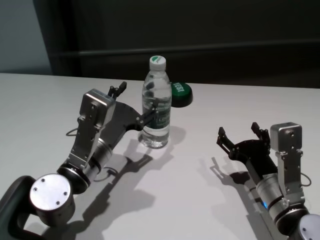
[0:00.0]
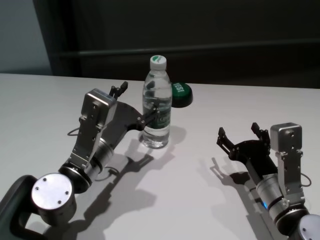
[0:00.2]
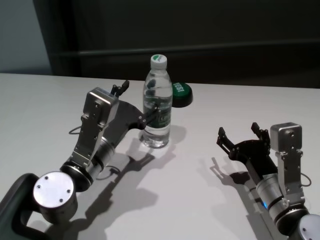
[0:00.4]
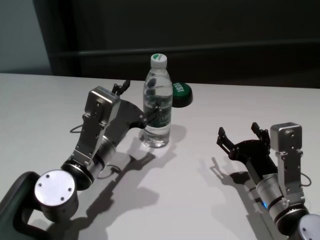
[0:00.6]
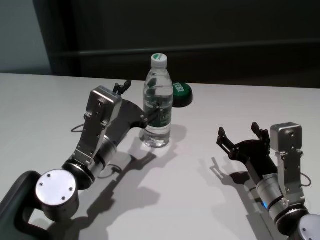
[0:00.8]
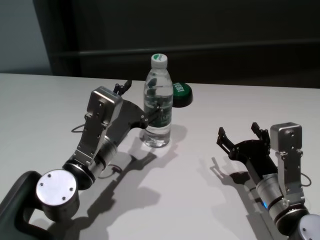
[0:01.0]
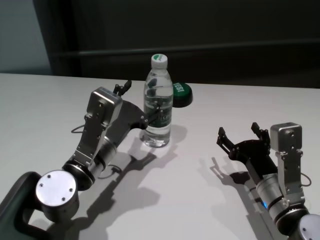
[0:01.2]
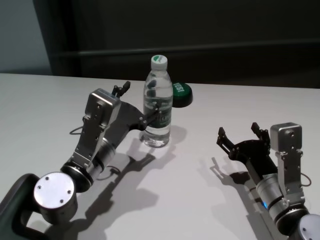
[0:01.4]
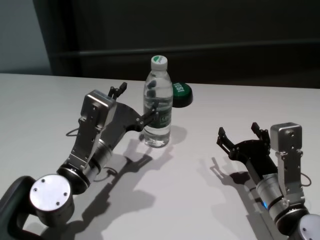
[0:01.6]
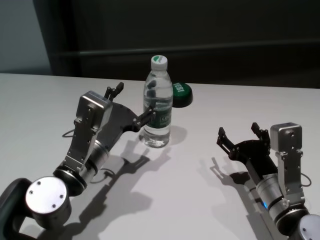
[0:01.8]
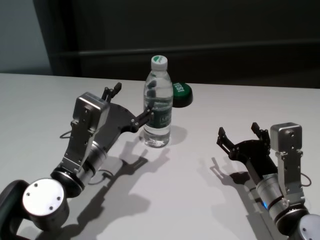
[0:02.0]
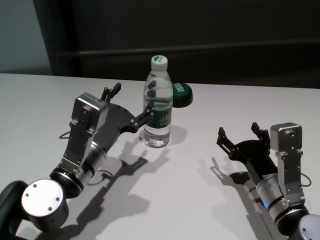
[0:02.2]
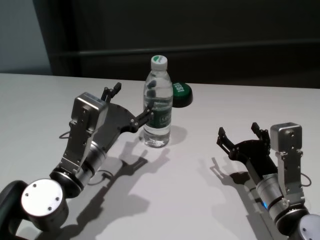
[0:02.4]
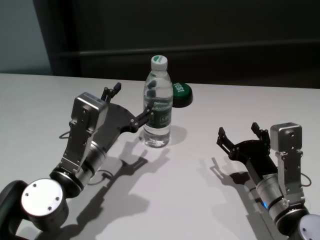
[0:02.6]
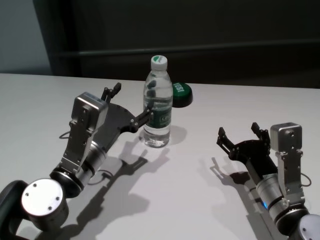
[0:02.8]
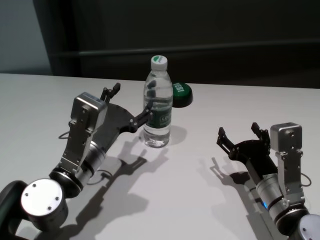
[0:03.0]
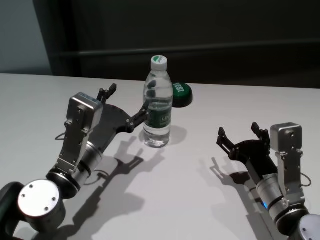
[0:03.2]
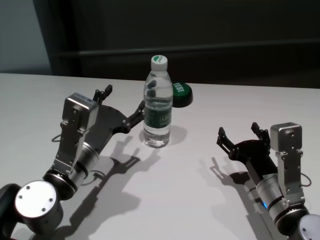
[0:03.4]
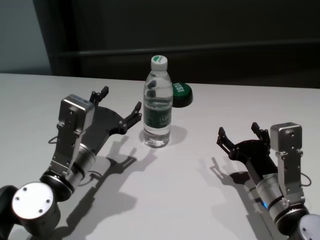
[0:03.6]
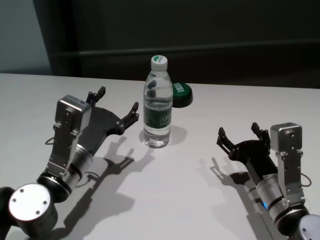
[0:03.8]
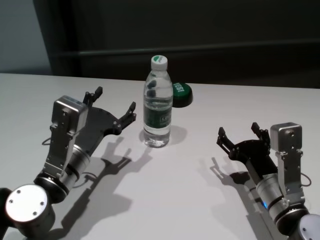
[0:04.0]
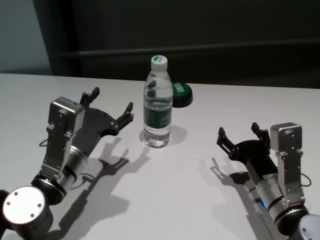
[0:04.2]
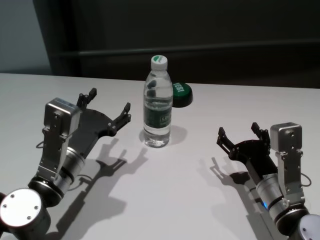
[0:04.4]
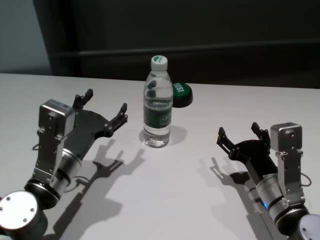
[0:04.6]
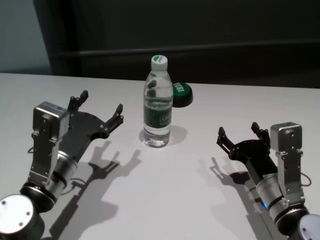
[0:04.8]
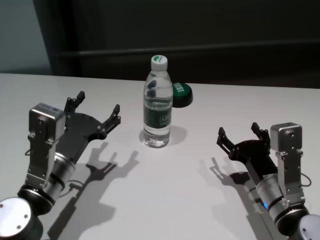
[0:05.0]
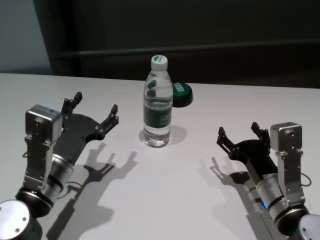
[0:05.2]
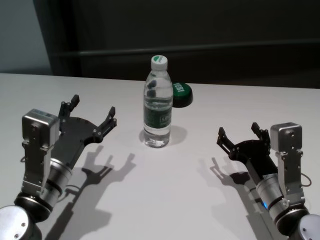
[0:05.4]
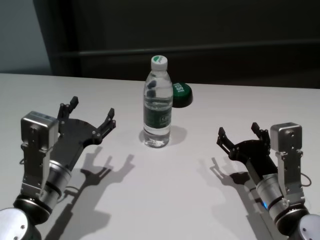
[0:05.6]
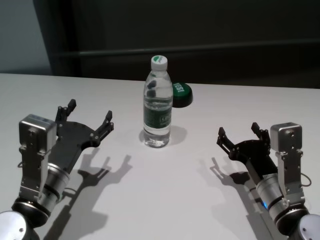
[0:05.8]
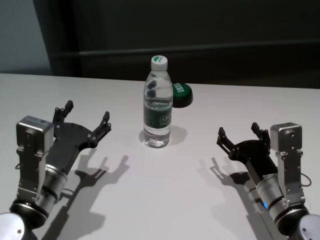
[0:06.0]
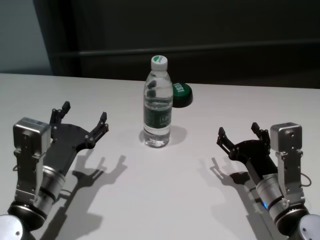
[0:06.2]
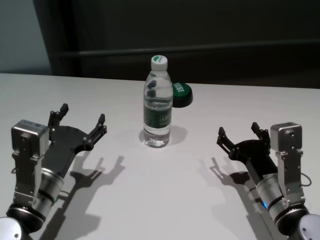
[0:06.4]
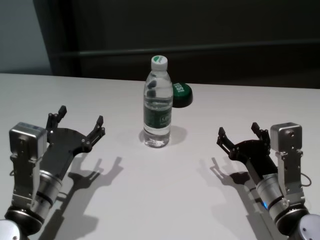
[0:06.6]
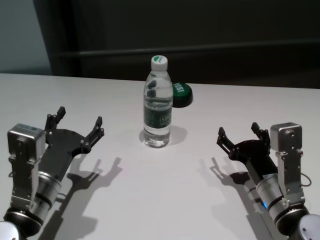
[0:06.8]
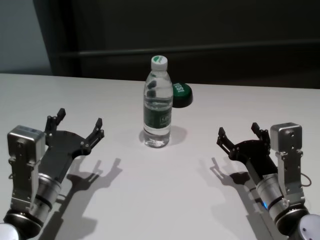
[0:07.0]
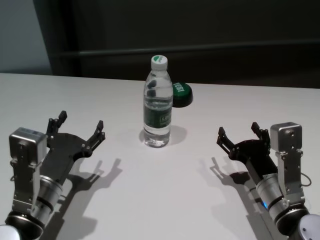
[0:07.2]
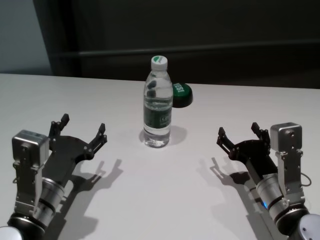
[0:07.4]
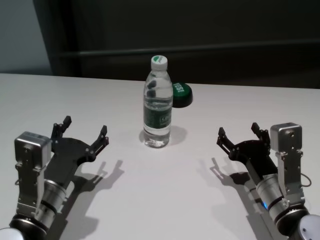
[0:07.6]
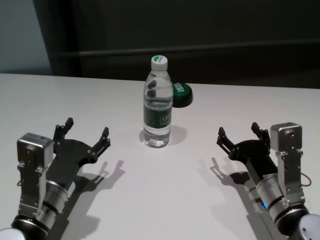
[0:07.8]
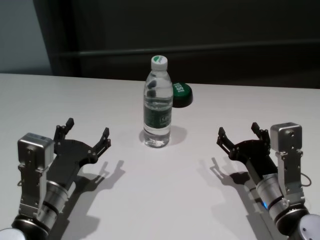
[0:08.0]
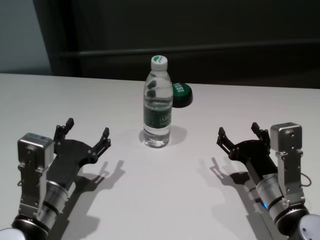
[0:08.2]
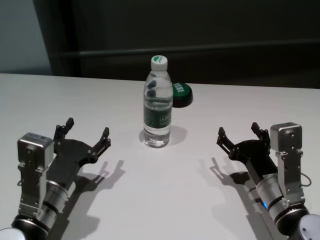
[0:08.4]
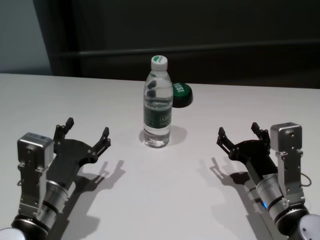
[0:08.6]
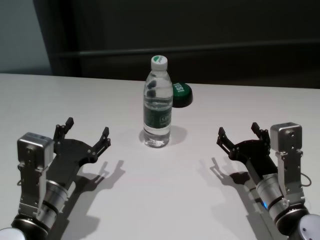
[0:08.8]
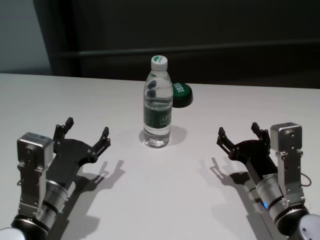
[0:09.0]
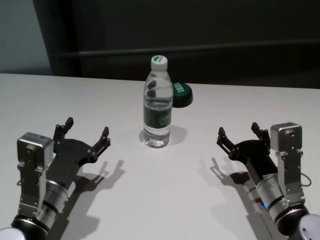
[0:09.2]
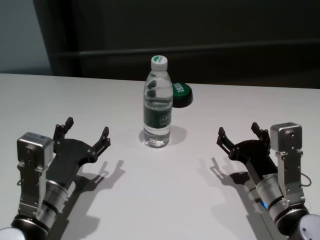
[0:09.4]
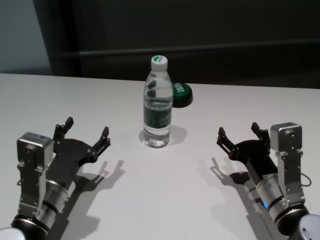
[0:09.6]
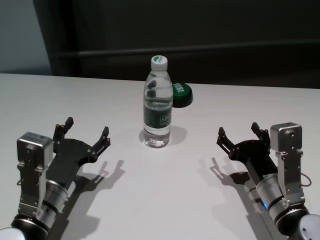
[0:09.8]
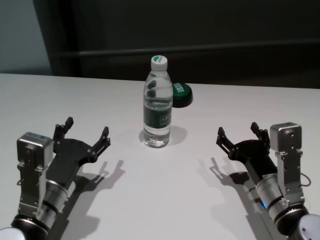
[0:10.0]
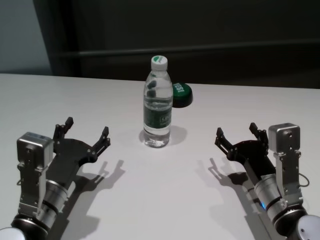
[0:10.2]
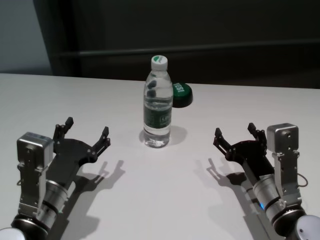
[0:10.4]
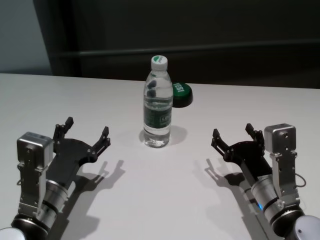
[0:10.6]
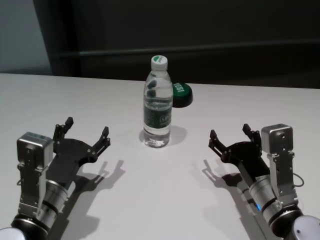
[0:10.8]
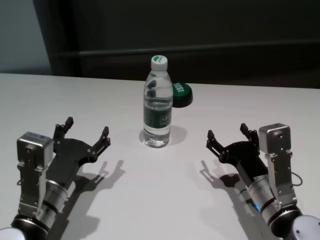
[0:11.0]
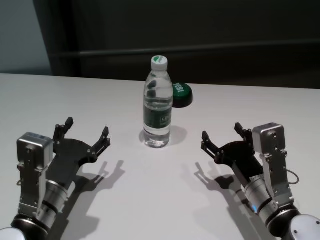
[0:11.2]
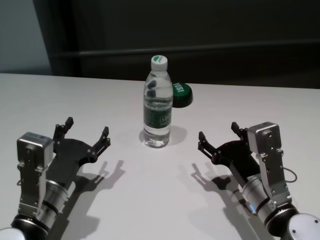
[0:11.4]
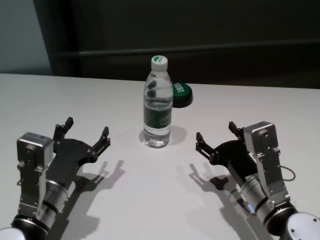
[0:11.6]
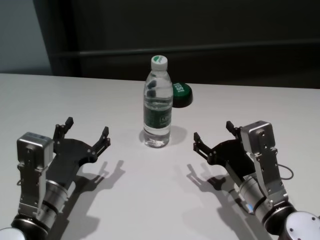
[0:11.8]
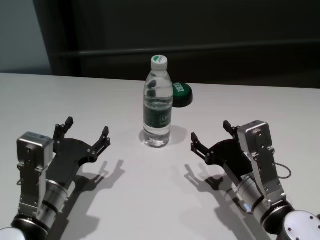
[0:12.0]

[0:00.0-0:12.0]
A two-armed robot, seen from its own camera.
Task of the whole recording: return to a safe position after touching an obstacle with your arm on the white table.
Step, 0:00.0 to 0:03.6: Touch the bottle with left gripper.

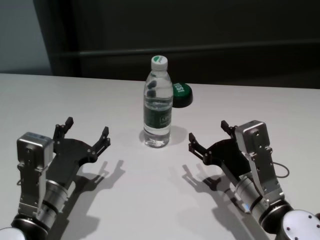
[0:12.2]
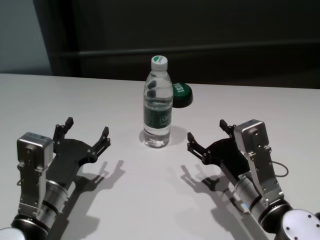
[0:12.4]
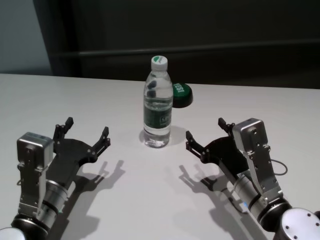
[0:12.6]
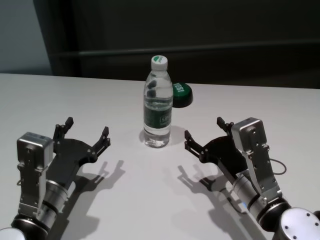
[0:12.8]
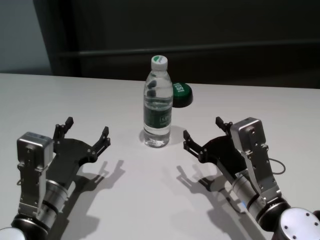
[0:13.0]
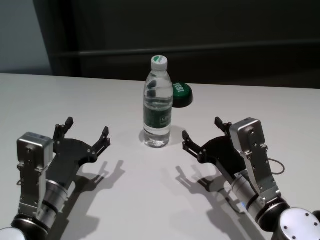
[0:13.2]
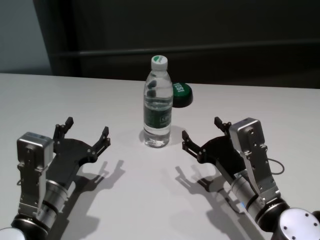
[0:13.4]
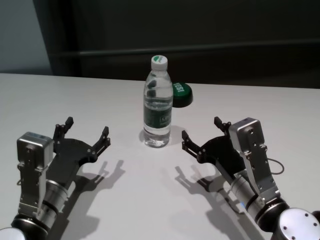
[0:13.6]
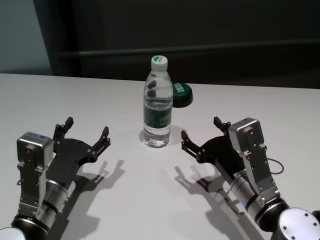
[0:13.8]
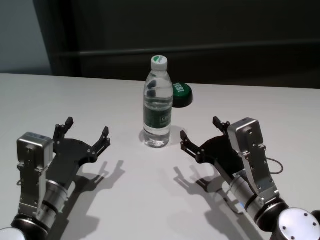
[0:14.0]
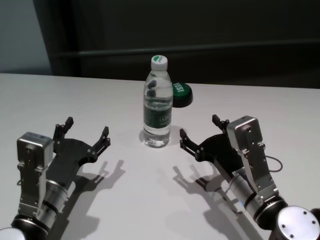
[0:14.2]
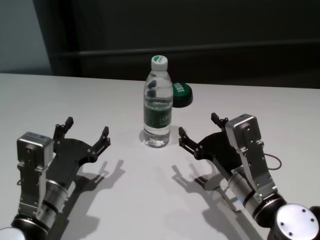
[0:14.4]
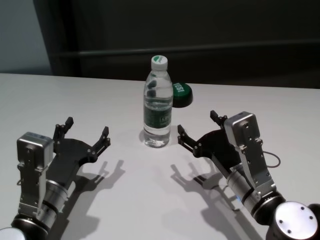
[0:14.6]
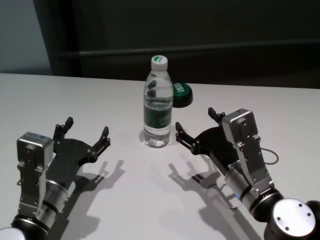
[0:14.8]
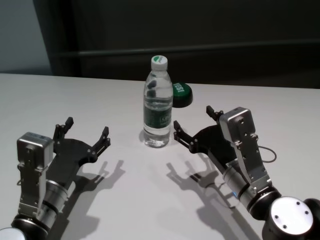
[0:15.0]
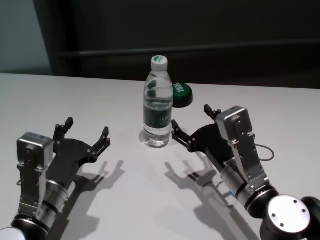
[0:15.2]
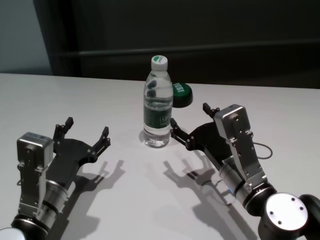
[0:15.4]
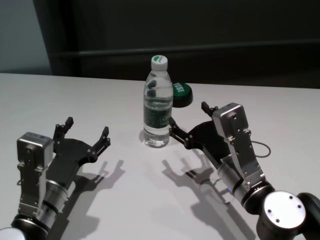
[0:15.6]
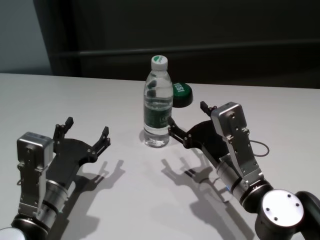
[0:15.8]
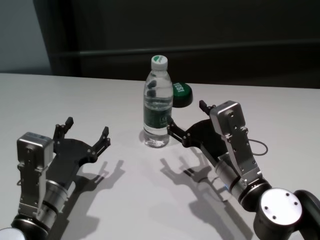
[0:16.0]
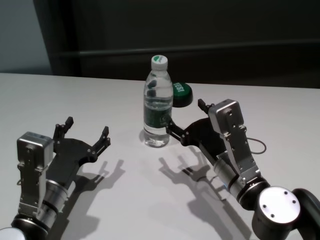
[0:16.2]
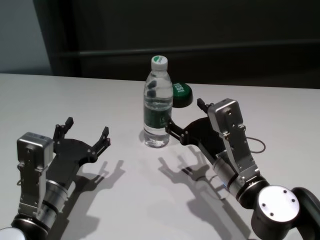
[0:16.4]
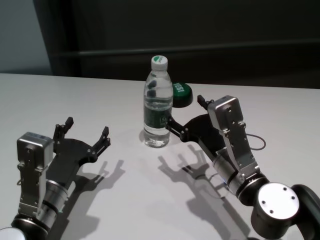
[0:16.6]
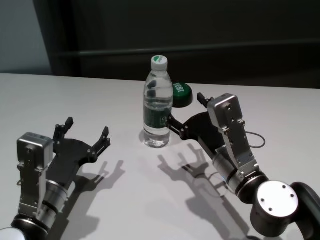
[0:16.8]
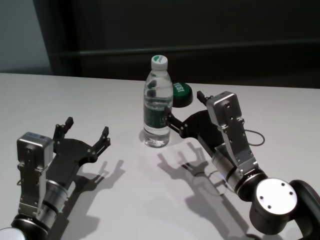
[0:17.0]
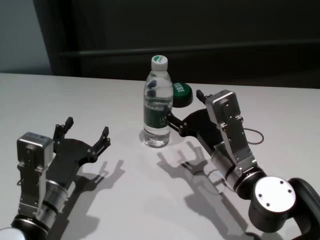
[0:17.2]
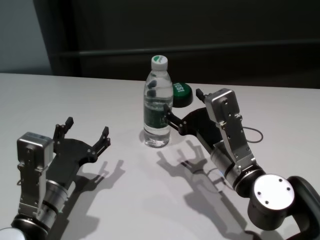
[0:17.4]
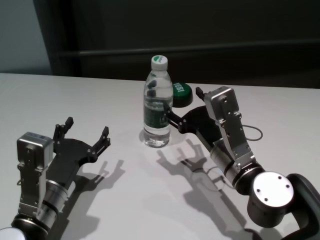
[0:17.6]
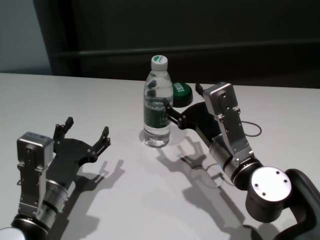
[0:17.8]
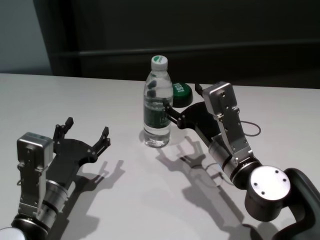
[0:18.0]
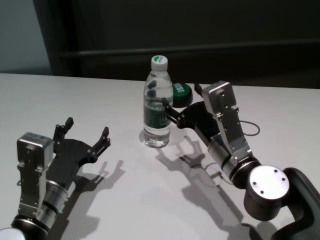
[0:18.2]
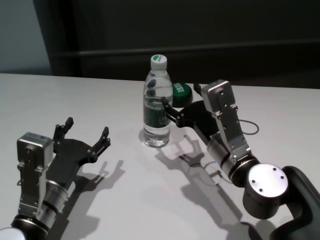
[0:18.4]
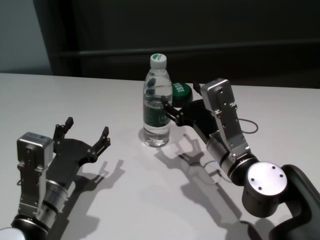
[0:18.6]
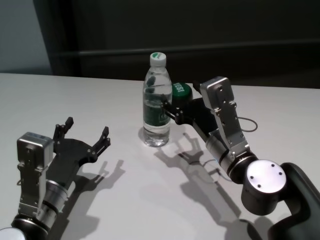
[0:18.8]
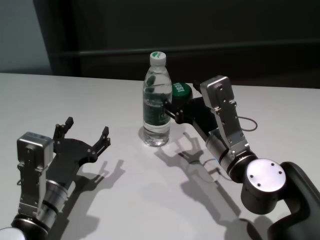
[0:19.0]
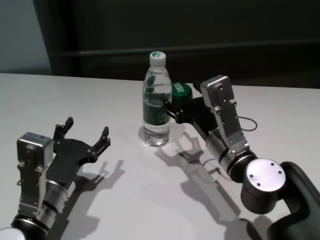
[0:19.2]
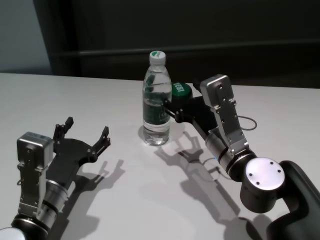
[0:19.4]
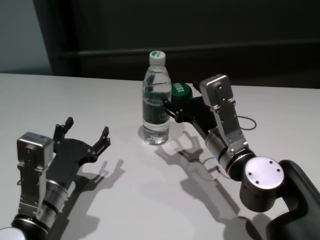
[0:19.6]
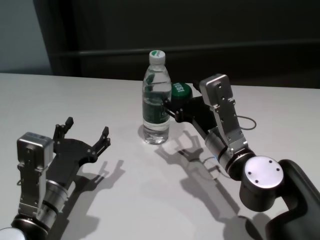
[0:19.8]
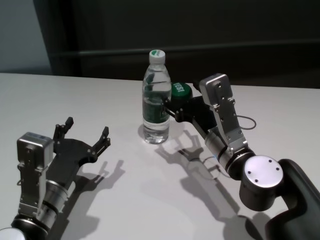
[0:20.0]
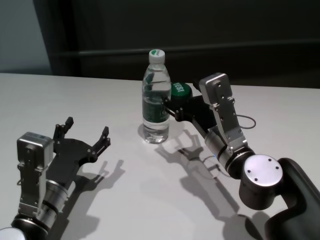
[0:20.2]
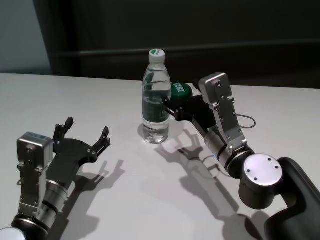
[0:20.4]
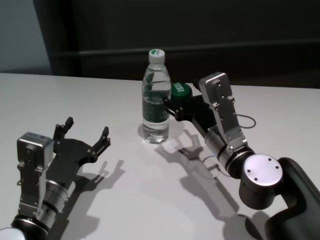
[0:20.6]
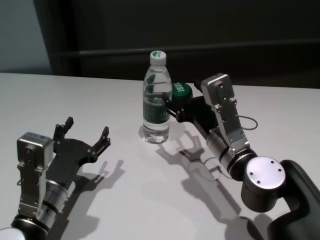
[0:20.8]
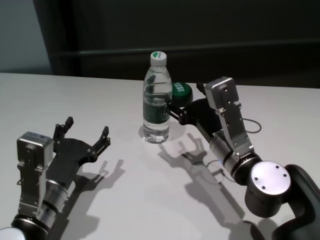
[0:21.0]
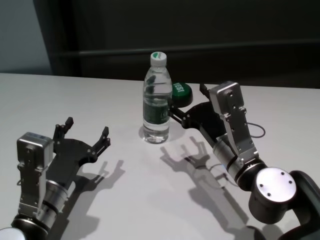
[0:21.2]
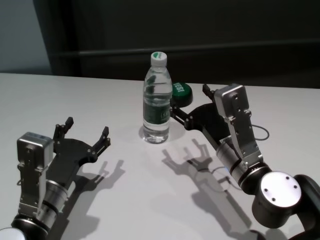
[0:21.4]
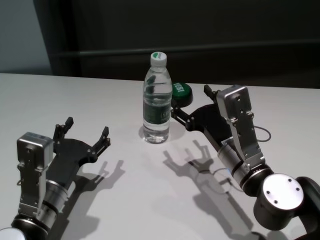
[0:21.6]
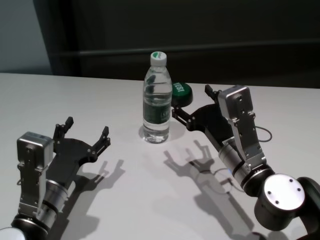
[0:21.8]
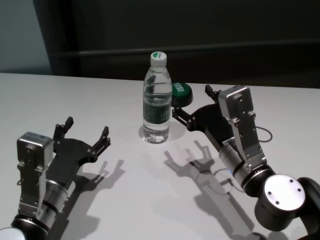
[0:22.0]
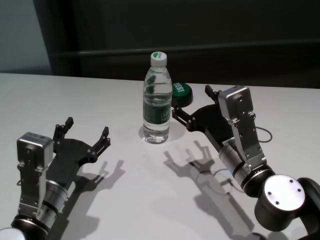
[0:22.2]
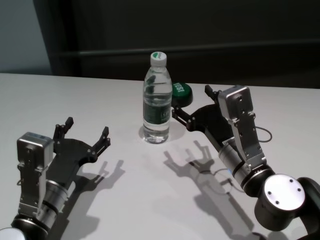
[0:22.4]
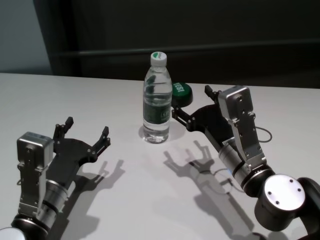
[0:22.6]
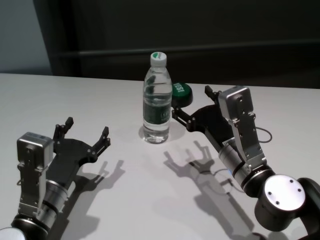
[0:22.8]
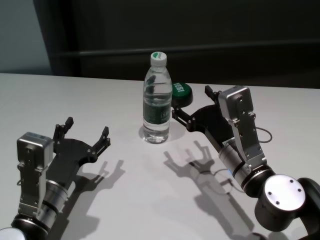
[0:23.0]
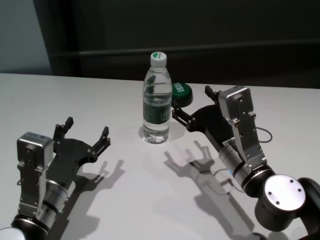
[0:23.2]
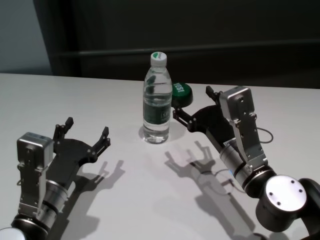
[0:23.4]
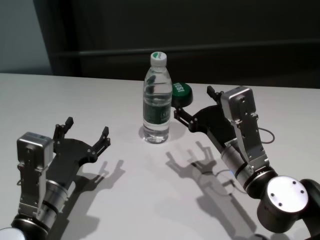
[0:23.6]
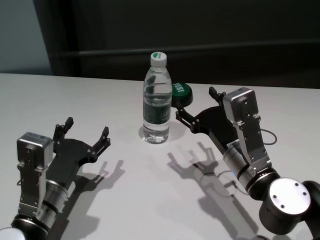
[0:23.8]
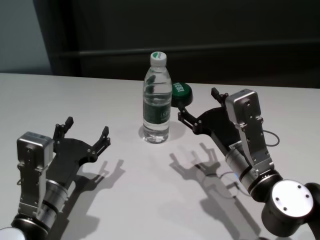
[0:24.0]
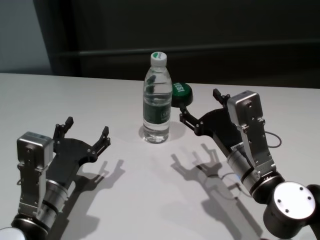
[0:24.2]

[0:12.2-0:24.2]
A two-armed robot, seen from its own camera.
Task of the whole recording: return to a safe position after touching an obstacle with your arm on the white table.
Step, 0:12.2 to 0:23.6: Touch the bottle with right gripper.
